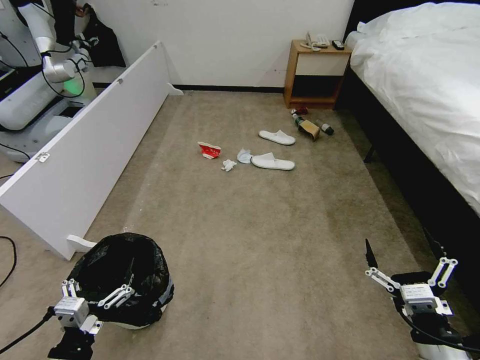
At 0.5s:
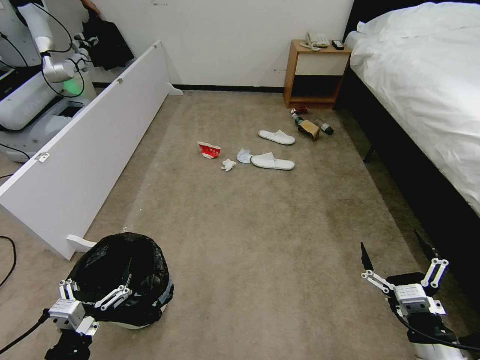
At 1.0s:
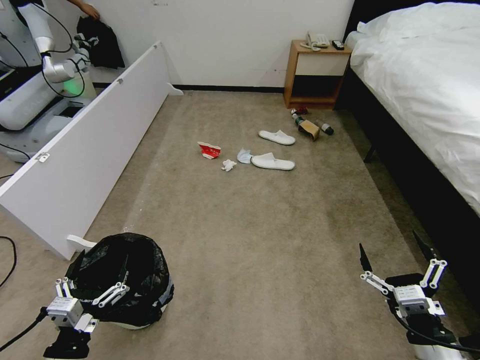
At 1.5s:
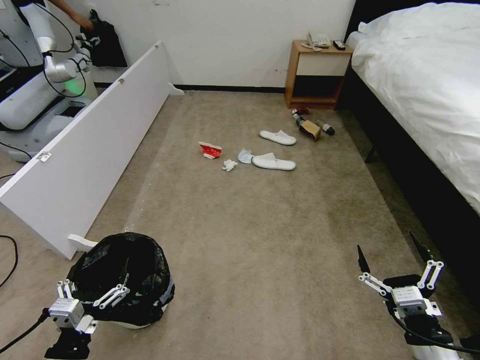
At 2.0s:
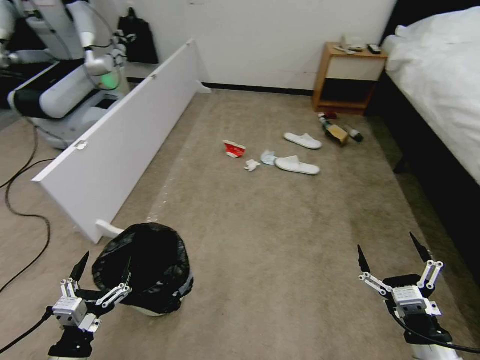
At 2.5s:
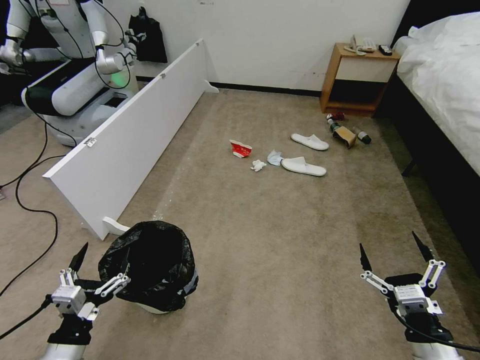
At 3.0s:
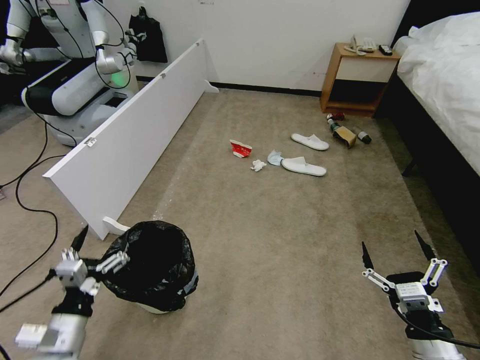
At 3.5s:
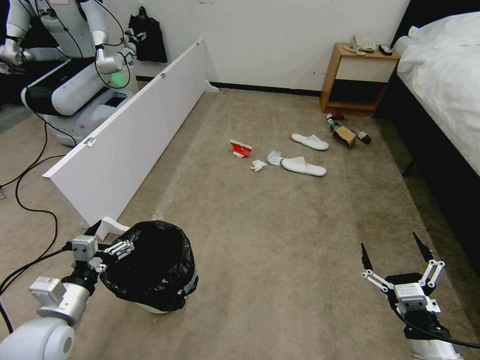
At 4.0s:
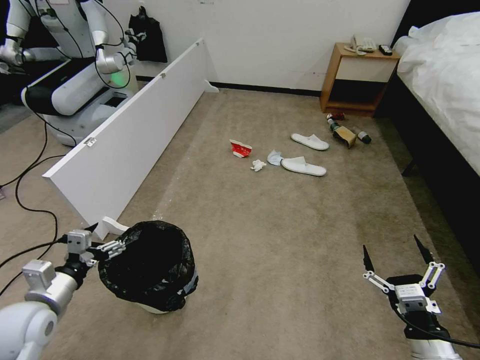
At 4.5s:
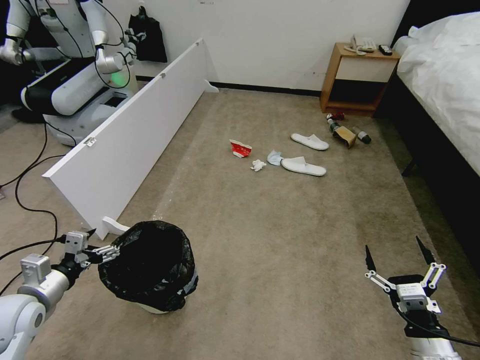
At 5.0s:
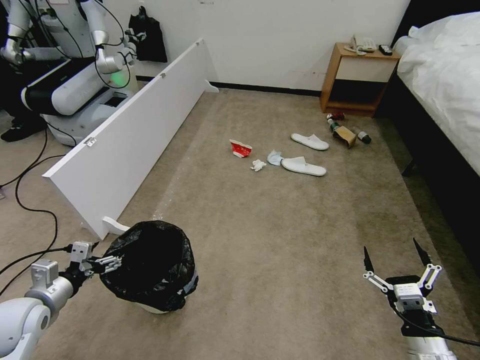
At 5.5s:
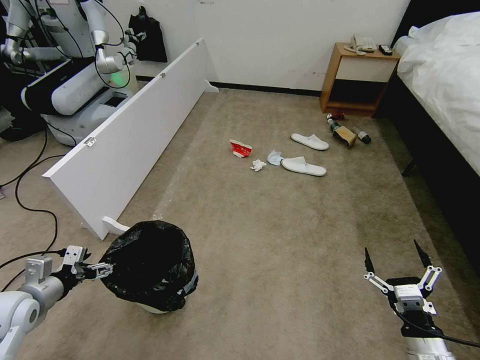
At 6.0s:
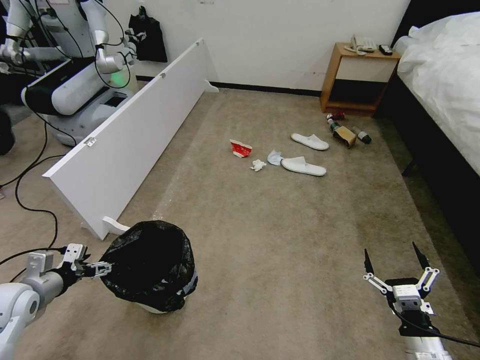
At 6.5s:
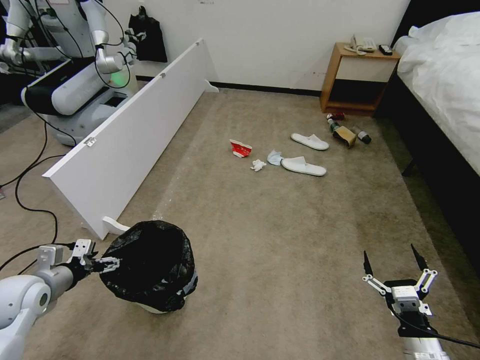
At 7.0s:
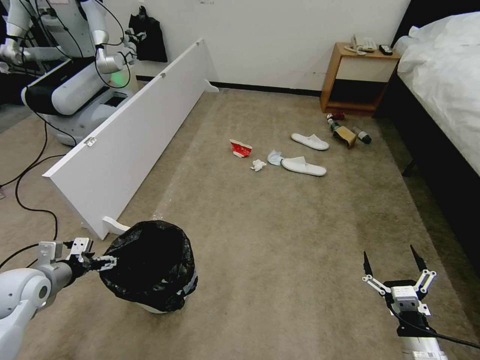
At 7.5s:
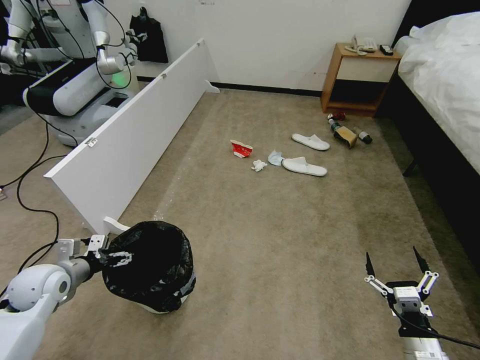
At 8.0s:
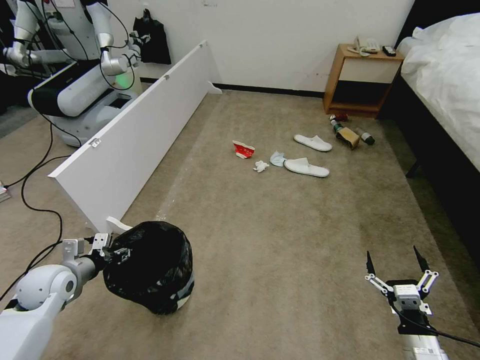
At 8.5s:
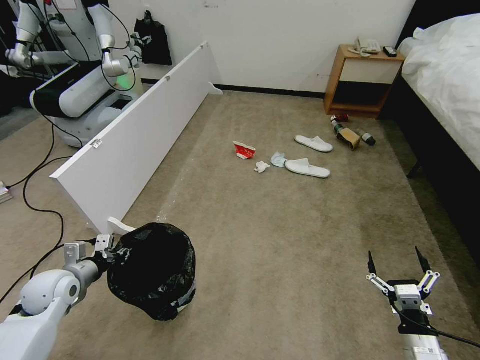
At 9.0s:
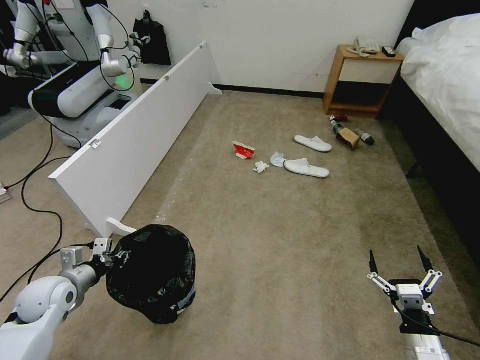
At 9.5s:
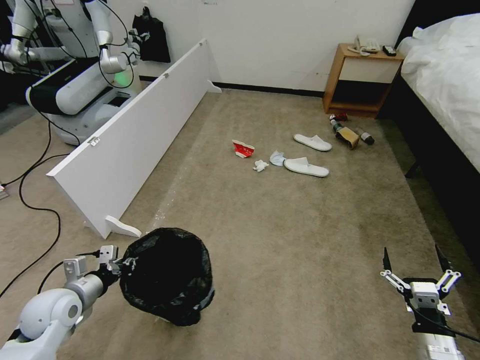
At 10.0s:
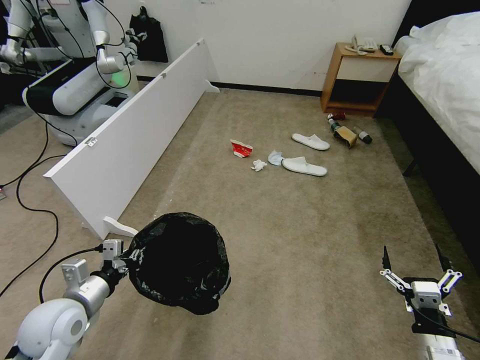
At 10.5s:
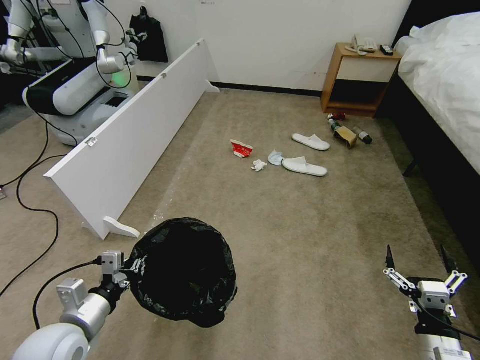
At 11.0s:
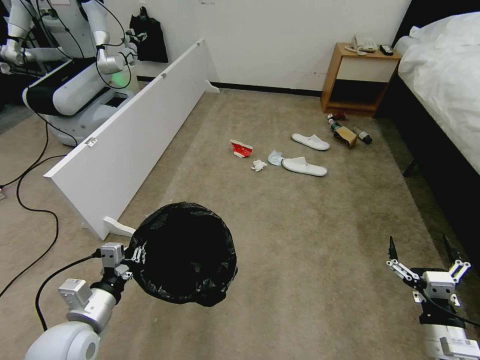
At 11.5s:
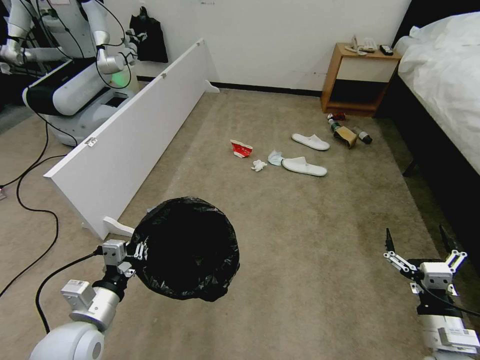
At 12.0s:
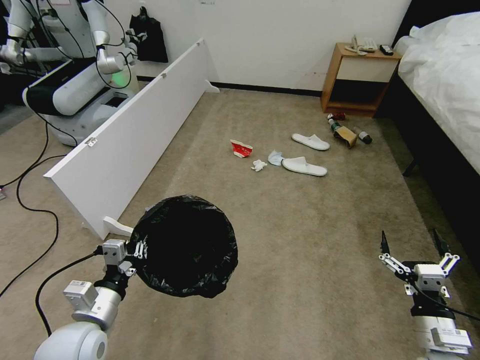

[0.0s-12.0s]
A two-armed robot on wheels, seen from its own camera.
Task of the whole recording: Pick up the trash bin, then pick up the garbage from the floor and place it into the trash bin.
2.0s to 4.0s: The left gripper travels forward, to the left and upward by roughly 15 cm.
4.0s to 6.0s: The left gripper heads to the left, covering some 5 cm.
6.0s to 8.0s: The left gripper moves forward, approximately 5 cm, and closes up.
8.0s to 10.0s: The left gripper heads backward and to the right, covering approximately 10 cm, and closes.
10.0s to 12.0s: The left gripper shifts some 5 cm to the right.

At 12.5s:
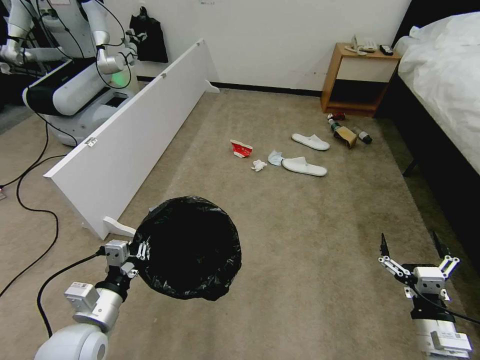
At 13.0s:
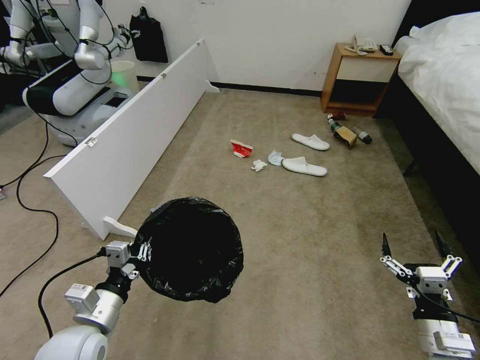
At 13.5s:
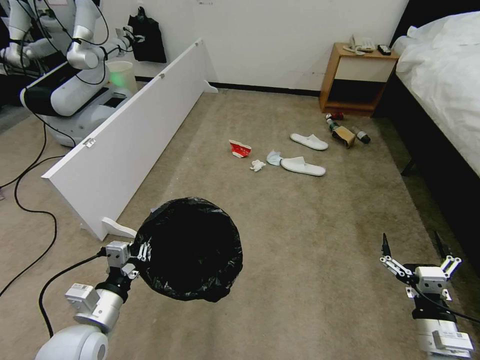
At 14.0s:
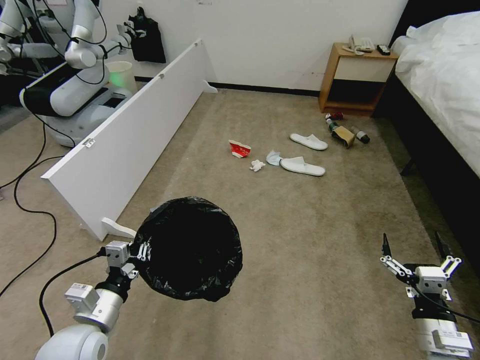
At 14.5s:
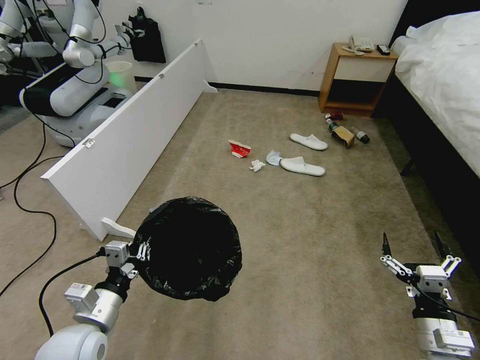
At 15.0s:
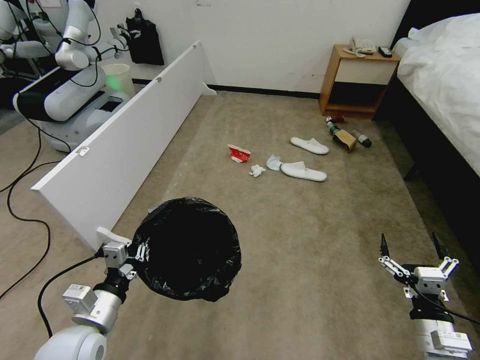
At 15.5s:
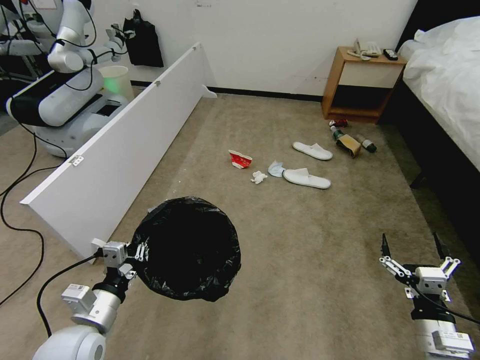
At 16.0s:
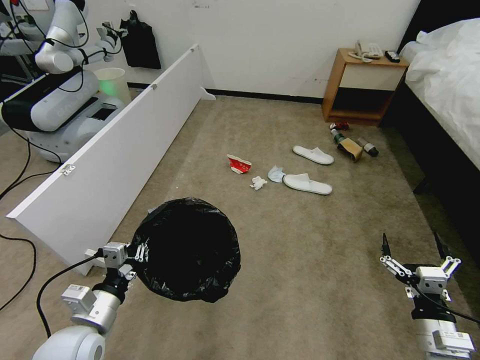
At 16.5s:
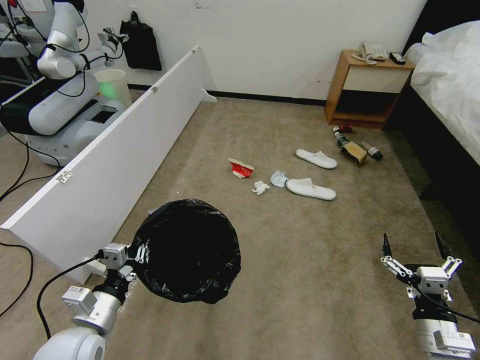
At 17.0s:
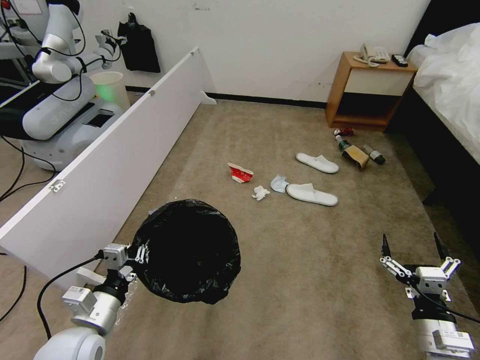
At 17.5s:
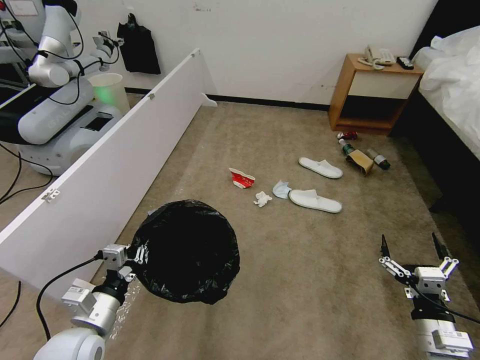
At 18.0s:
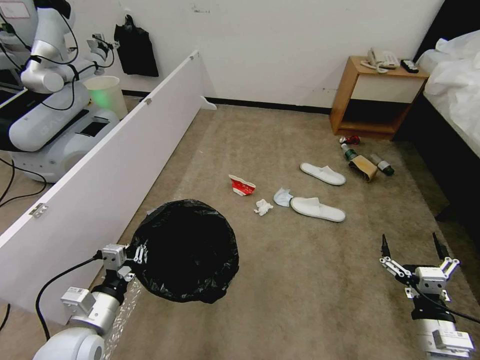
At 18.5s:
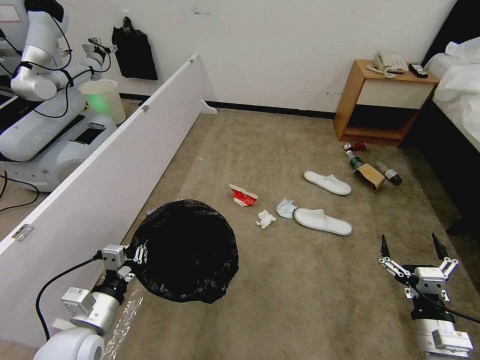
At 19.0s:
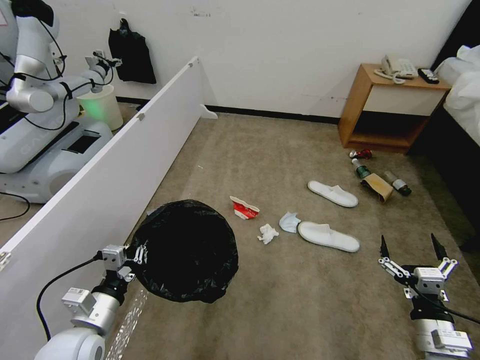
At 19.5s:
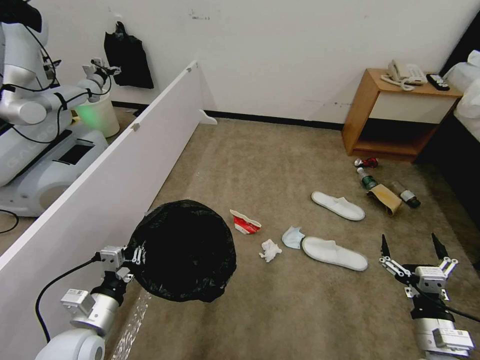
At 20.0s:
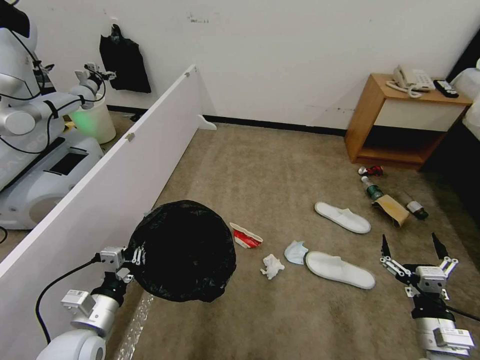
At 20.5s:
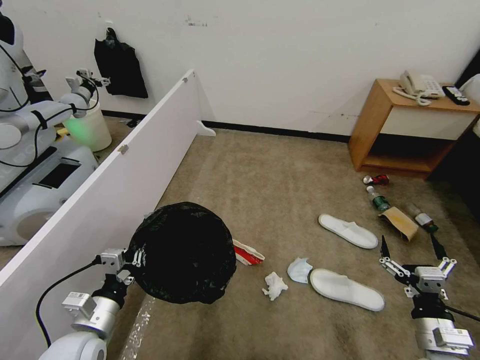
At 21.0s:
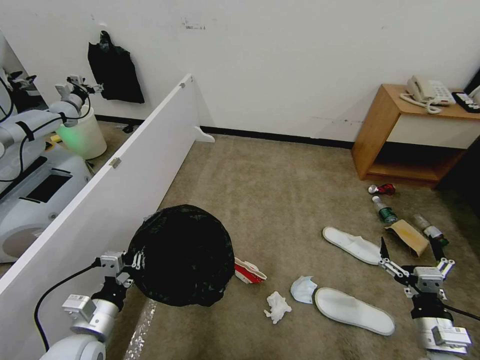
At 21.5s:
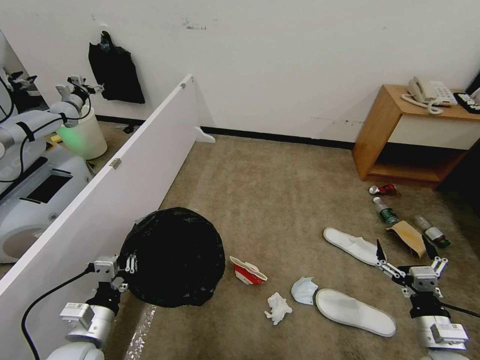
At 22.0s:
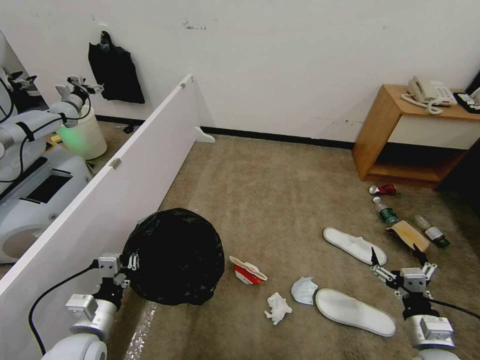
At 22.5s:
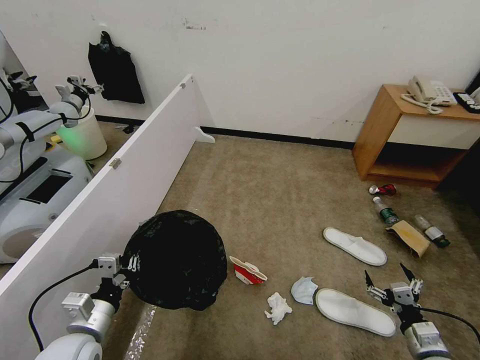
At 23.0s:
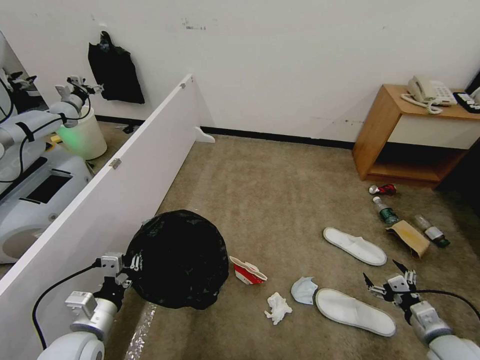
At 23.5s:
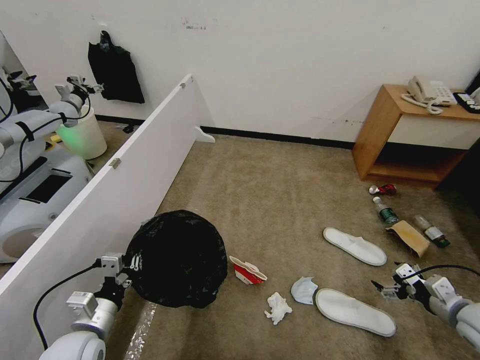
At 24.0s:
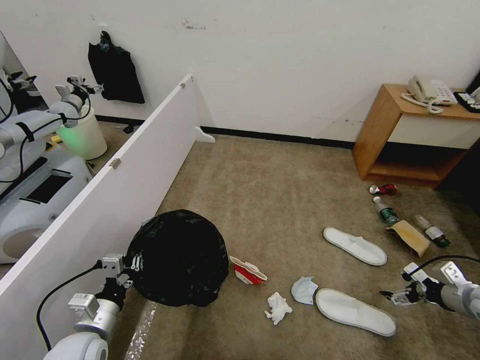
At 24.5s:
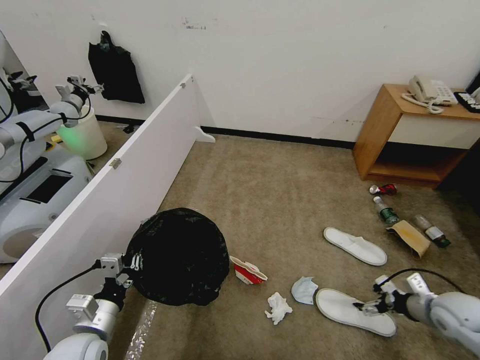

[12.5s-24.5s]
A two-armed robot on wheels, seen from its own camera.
Task of the whole recording: Pick up the trash bin, then pick up the garbage from the floor and place it into the trash bin.
12.5s to 14.5s: Neither gripper changes place.
20.5s to 22.5s: The right gripper moves downward, roughly 10 cm.
22.5s to 24.5s: The right gripper goes about 15 cm forward, upward and to the right.

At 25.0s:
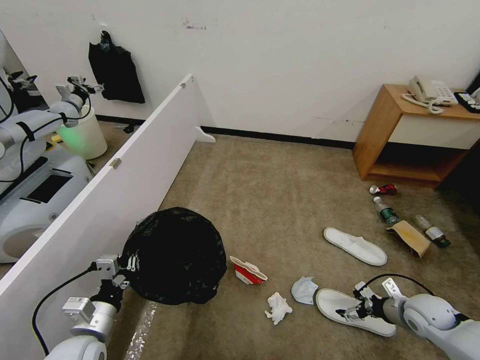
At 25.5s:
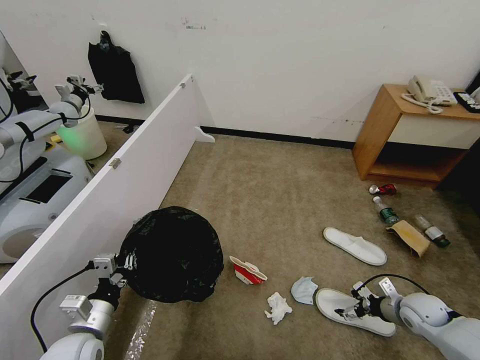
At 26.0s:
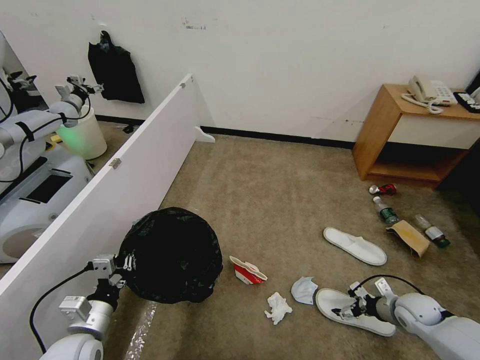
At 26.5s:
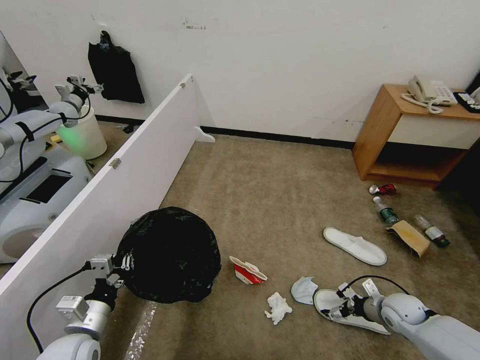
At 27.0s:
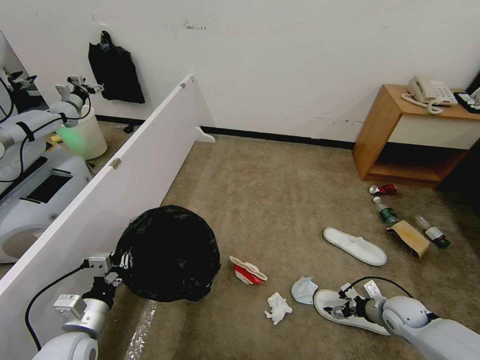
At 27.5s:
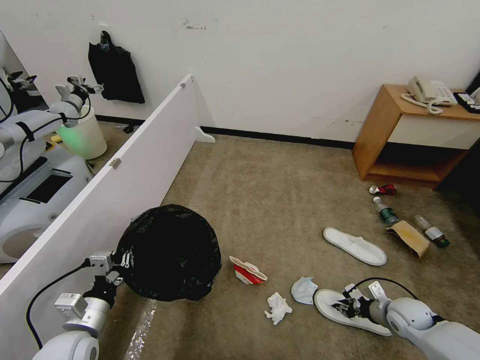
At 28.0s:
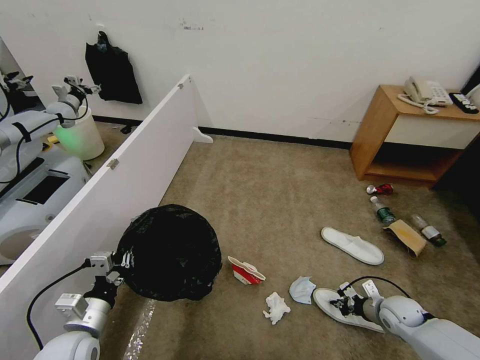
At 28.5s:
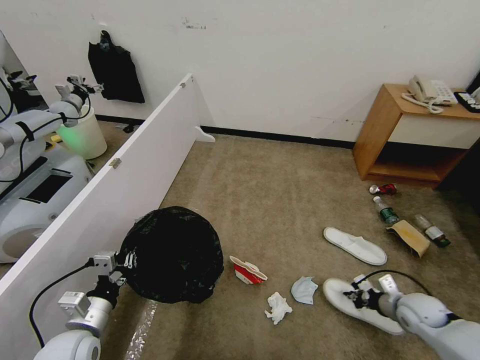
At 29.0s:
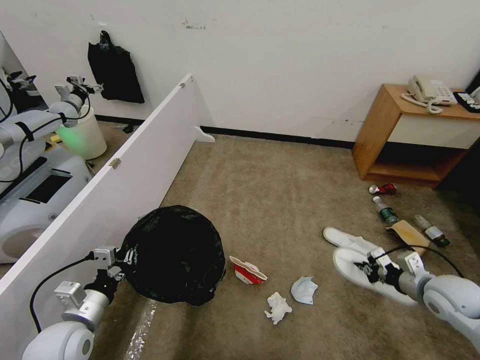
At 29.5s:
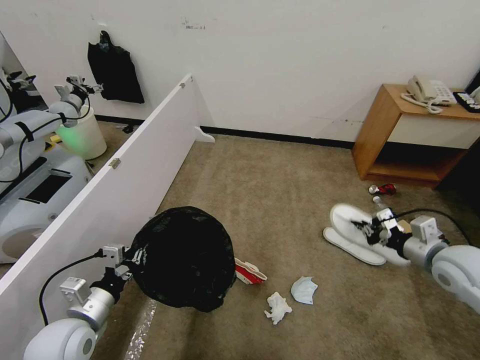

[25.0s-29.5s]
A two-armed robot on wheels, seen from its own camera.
Task of the whole recording: Pick up the trash bin, then pick up the garbage from the floor and place it into the trash bin.
25.0s to 27.0s: The right gripper changes place by roughly 5 cm.
27.0s to 29.5s: The right gripper shifts approximately 25 cm upward, and closes its fingers.
